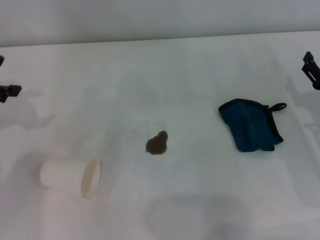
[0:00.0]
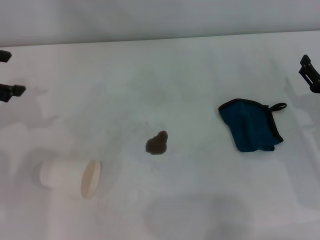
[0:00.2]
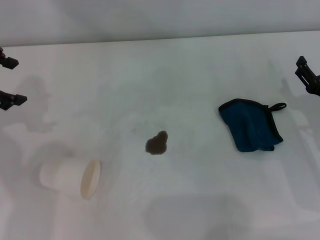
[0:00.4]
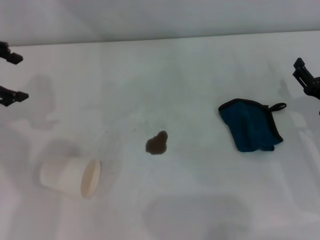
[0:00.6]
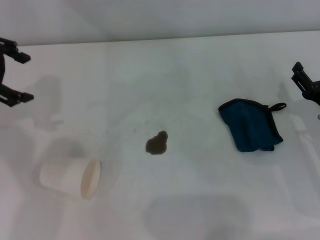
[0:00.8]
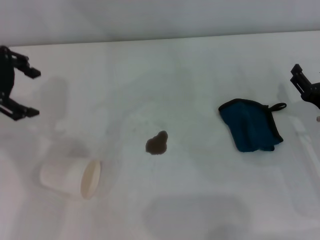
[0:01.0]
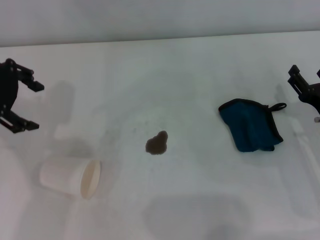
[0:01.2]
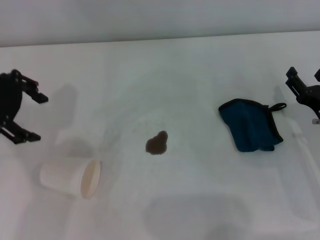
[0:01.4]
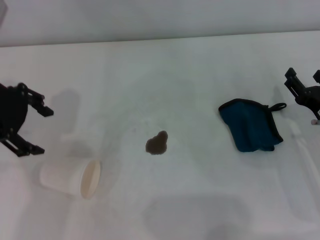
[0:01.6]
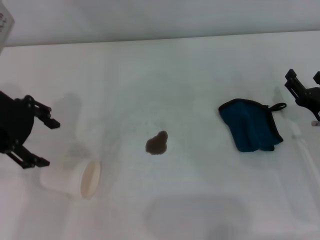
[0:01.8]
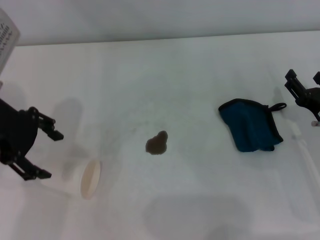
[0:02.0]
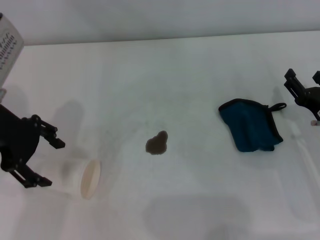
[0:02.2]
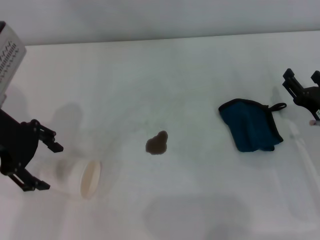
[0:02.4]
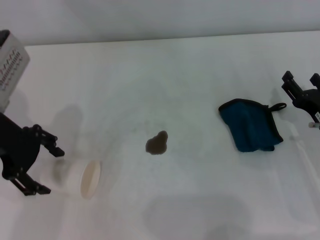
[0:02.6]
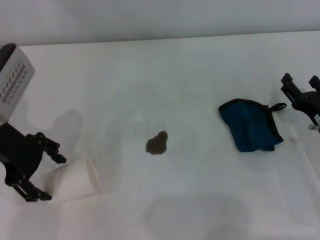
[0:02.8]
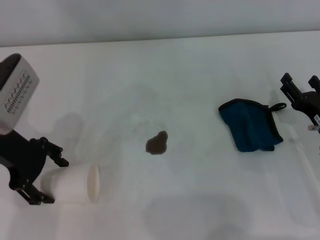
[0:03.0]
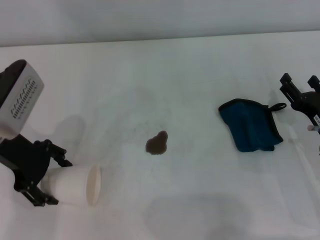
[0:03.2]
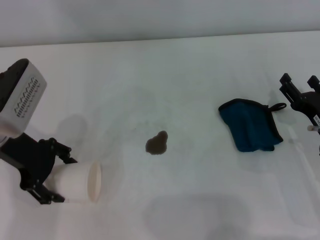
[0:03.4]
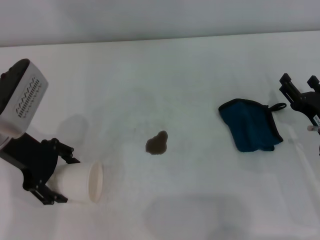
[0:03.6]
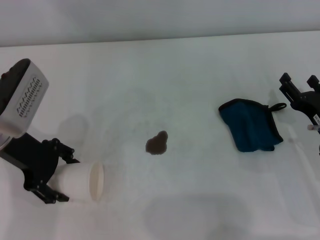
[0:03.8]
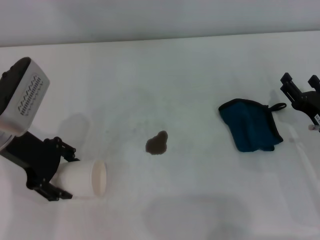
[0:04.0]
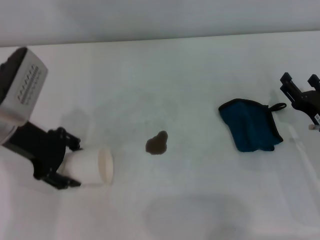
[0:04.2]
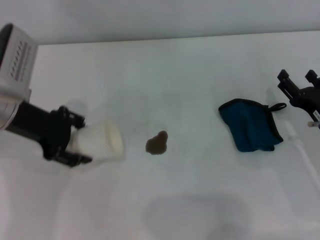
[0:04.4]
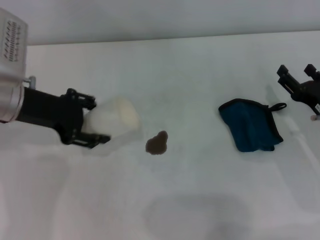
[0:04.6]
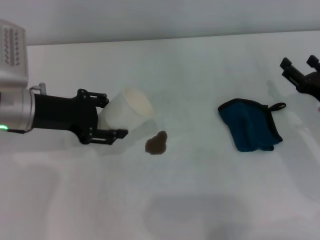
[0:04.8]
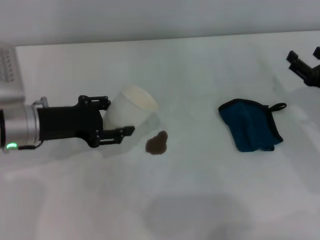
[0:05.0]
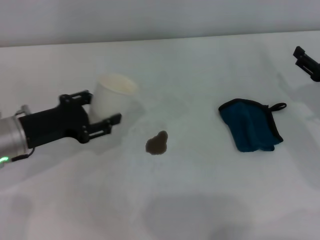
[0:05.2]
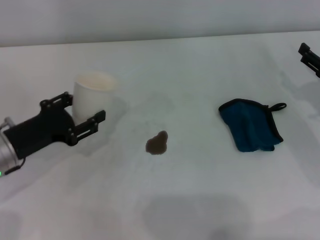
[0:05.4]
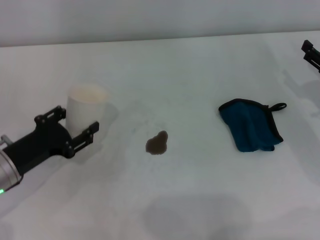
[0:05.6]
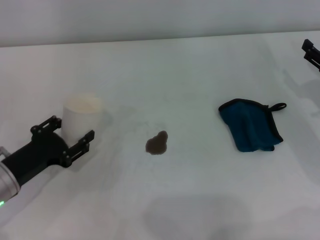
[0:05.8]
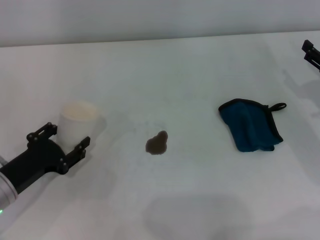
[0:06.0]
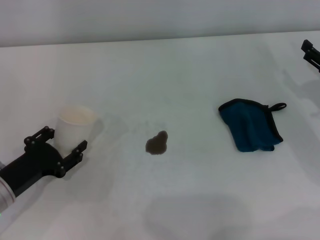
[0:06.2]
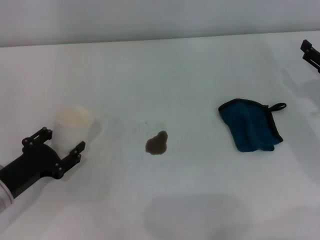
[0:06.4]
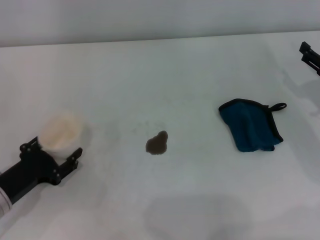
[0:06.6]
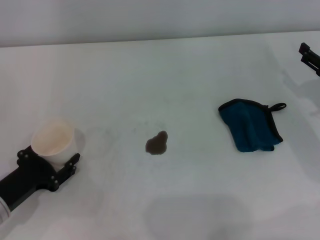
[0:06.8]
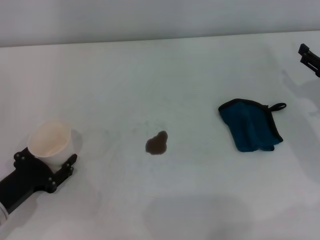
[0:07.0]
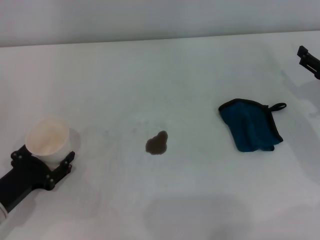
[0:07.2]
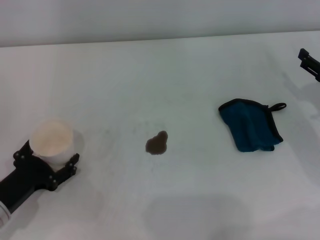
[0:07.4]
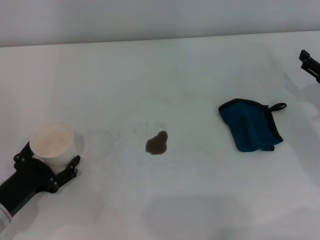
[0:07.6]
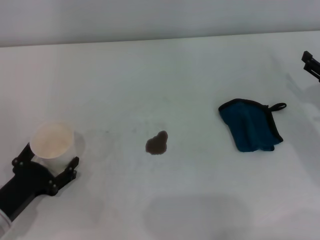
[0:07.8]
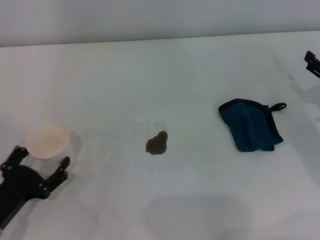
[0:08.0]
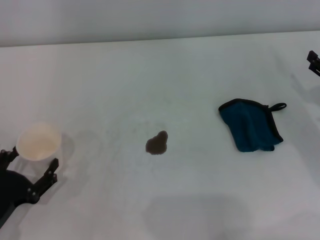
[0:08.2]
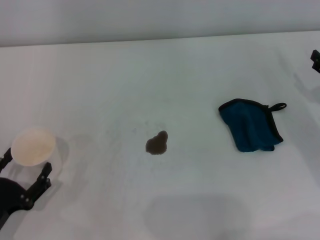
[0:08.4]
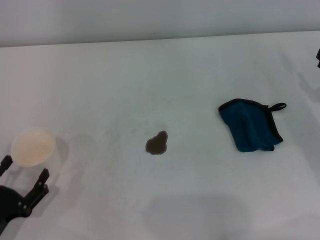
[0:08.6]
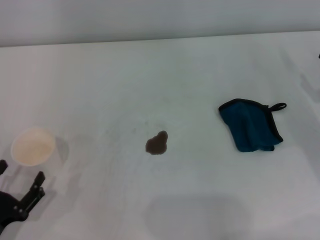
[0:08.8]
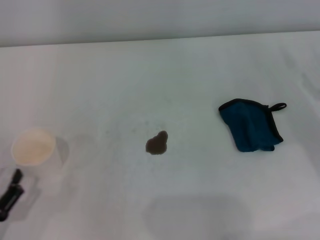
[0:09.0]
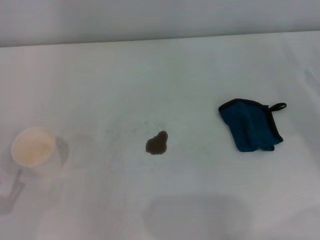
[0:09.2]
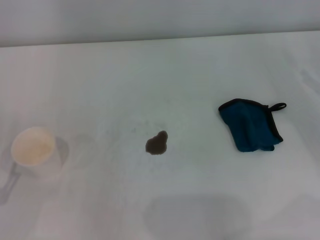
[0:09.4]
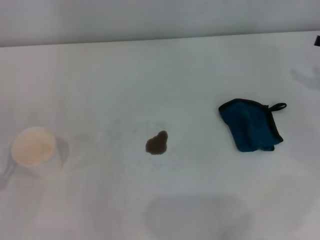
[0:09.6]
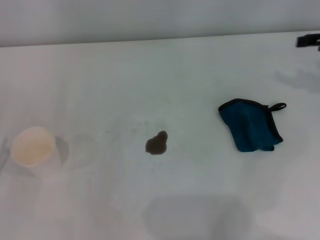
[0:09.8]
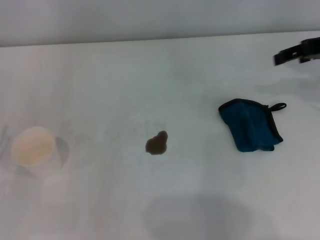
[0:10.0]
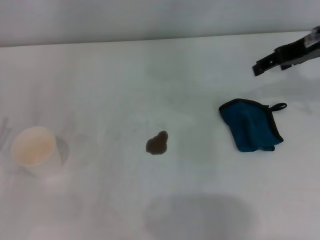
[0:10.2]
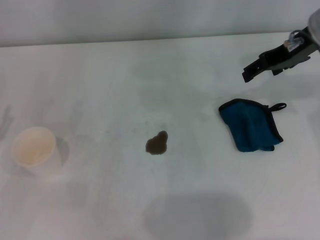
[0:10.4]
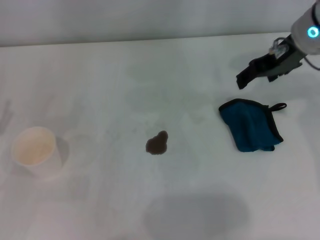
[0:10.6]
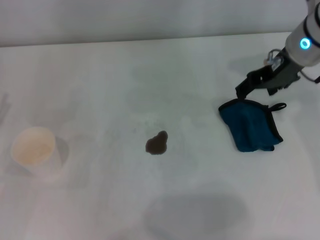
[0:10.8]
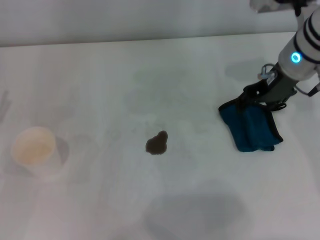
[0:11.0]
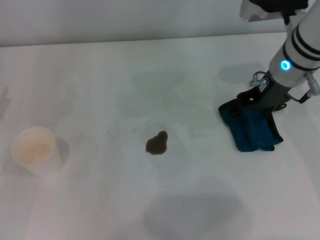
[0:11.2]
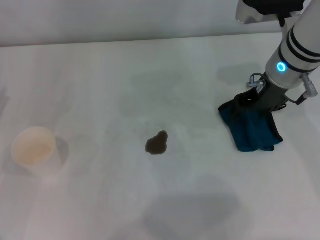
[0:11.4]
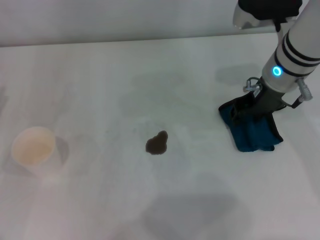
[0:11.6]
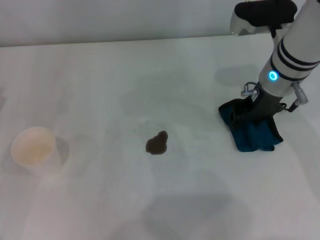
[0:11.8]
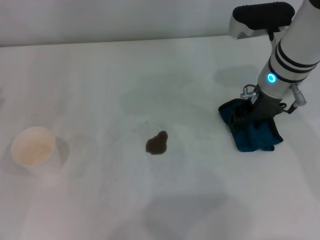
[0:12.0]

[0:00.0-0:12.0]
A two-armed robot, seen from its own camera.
Step, 0:00.0 to 0:03.8: Grasp the paper cup with the left gripper.
Step, 0:04.0 to 0:07.8: Stand the paper cup upright with the left gripper.
0:00.0 to 0:01.6: The left gripper travels to the right by roughly 10 cm.
0:01.6 to 0:03.0: The left gripper moves downward, roughly 10 cm.
0:03.0 to 0:04.4: The left gripper closes.
0:04.4 to 0:06.0: The right gripper heads to the right, covering about 5 cm. Meanwhile the left gripper is displaced downward and backward by some 20 cm.
0:06.0 to 0:07.6: The left gripper opens.
0:07.6 to 0:09.0: The left gripper shifts roughly 10 cm backward, and opens its fingers.
0:09.0 to 0:10.4: The right gripper moves upward, to the left and forward, approximately 25 cm, while the left gripper heads forward and upward, covering approximately 10 cm.
0:10.4 to 0:12.0: The right gripper shifts roughly 10 cm downward and to the left, and closes its fingers.

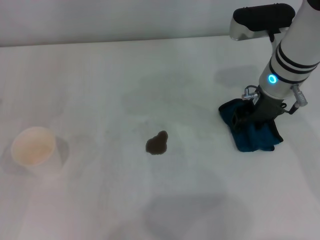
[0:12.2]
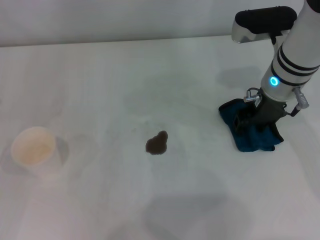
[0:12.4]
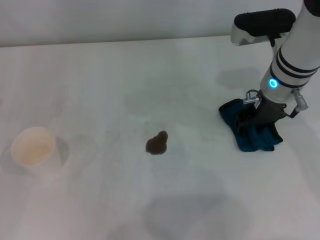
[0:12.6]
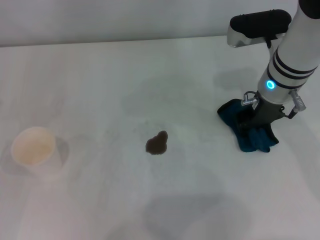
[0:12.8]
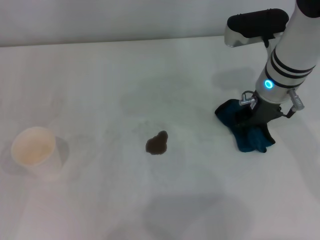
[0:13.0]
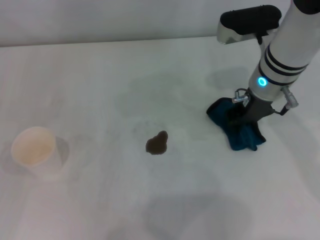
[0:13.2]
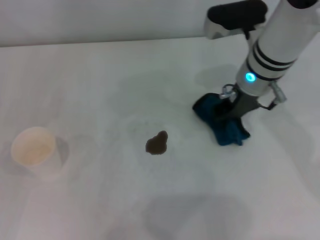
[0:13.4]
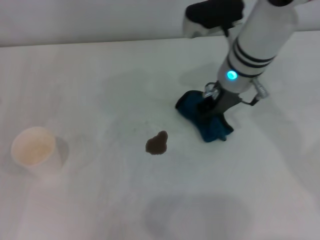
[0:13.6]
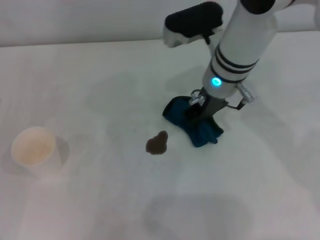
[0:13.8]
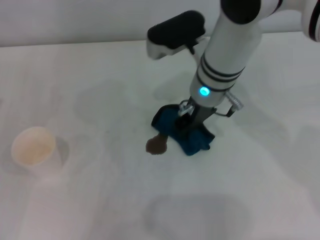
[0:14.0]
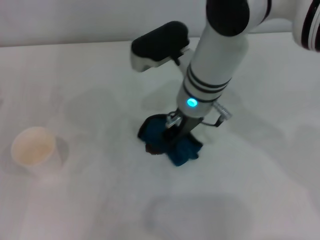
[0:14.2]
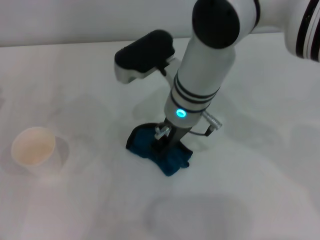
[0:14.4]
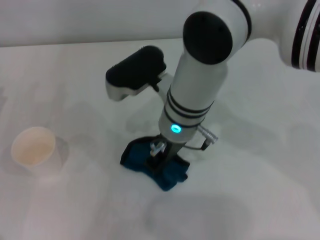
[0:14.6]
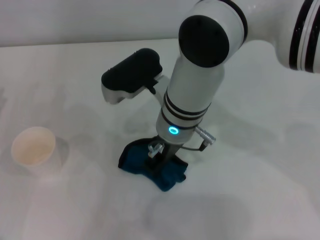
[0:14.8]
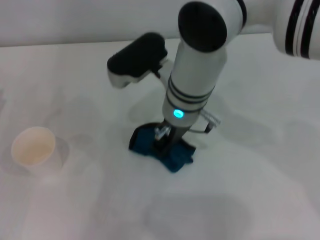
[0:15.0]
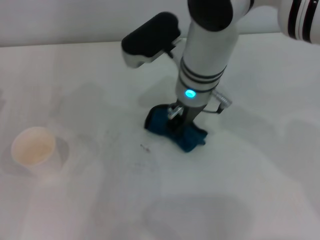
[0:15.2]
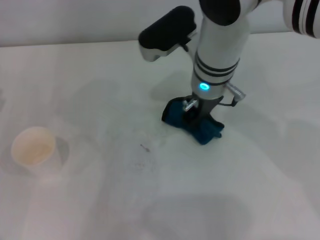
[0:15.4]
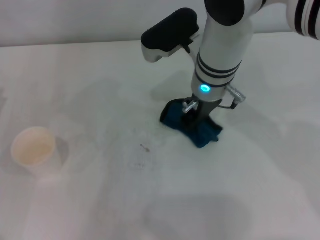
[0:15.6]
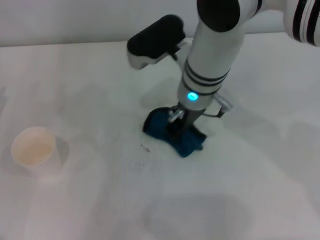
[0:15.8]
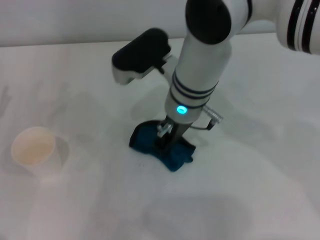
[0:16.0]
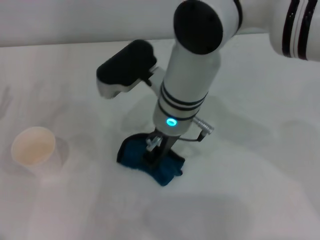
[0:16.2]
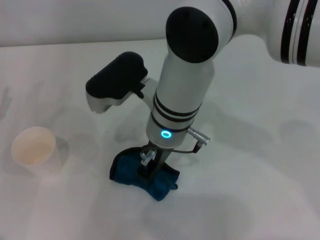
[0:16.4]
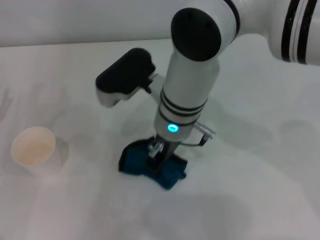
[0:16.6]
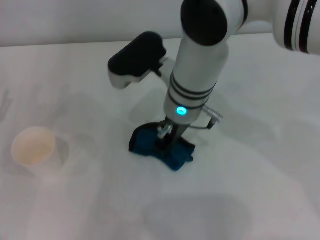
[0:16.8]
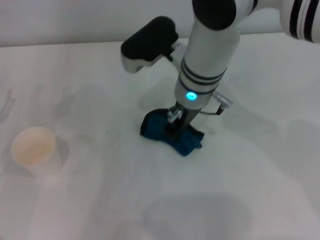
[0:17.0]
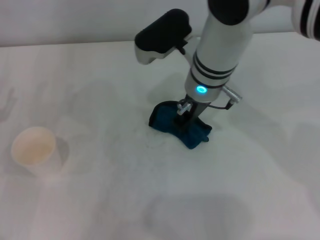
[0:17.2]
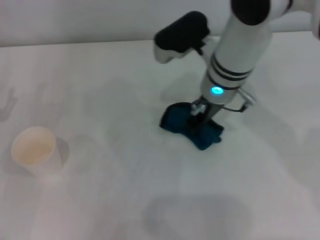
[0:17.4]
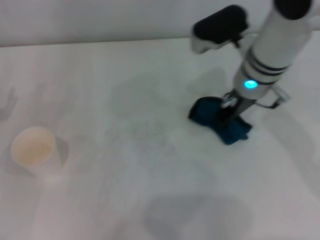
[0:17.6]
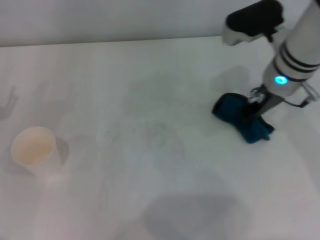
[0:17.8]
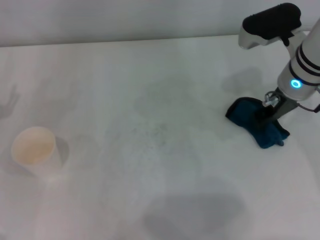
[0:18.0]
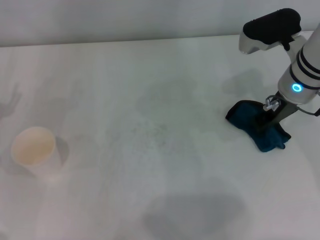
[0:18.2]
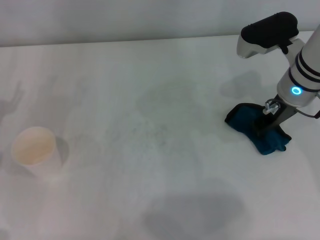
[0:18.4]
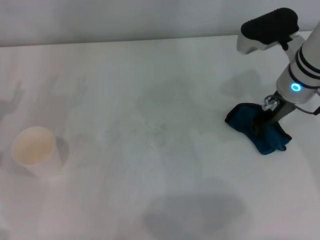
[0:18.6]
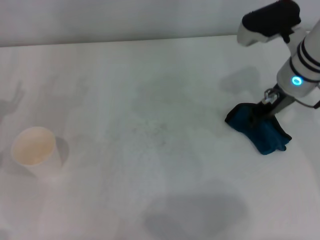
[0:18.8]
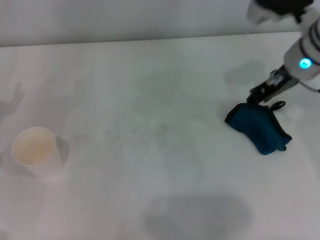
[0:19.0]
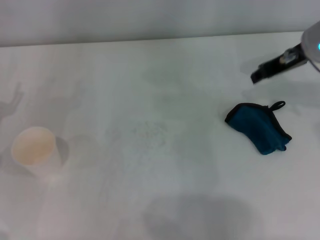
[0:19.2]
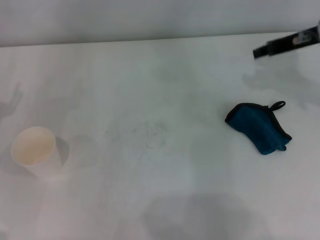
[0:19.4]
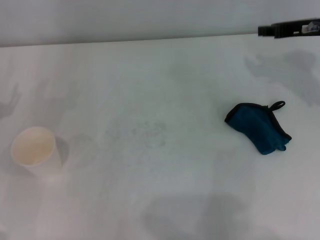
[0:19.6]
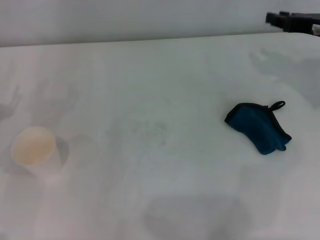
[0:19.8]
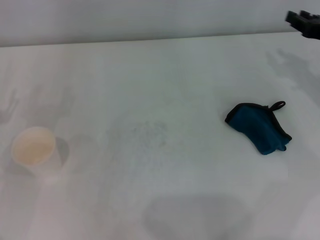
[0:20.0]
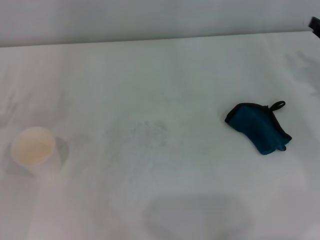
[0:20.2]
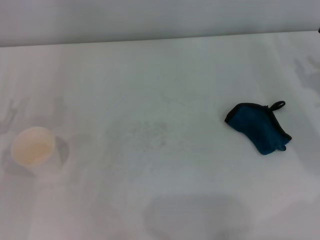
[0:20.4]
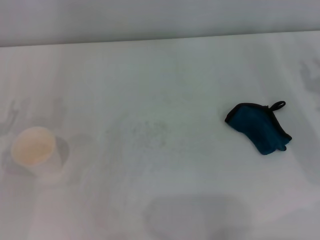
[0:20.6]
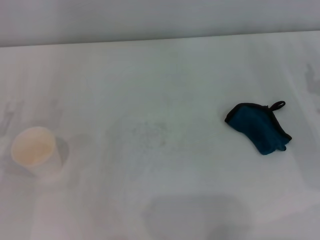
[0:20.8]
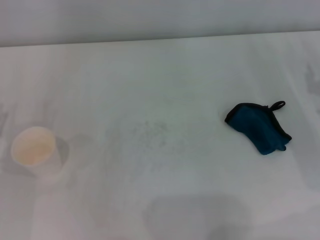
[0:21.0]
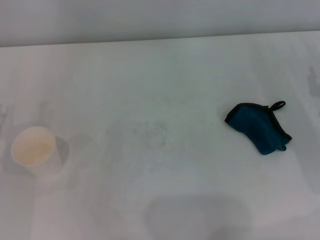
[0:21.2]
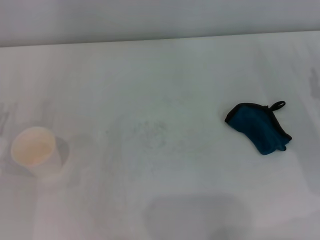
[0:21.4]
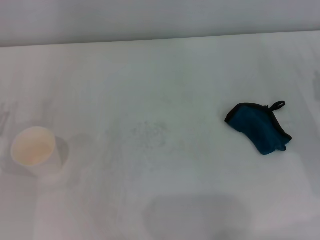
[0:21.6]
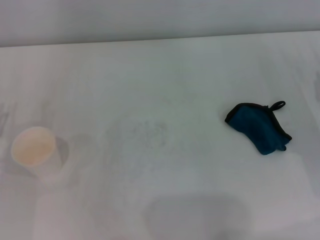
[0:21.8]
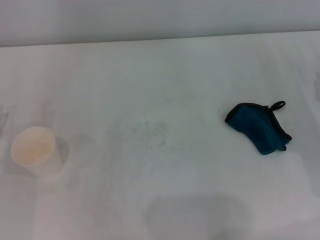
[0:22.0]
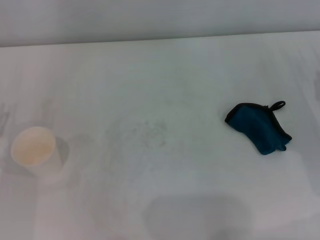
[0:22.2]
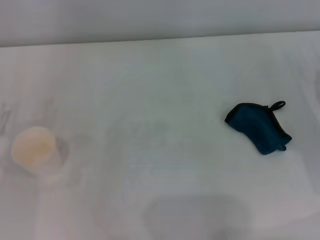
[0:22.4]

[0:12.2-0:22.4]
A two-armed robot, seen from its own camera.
Step, 0:13.0 to 0:17.6: Wipe the stains off the table with the right gripper.
Step, 0:17.8 to 0:18.4: Place the rag on the table with the right gripper.
0:12.2 to 0:13.6: The right gripper moves to the left, about 5 cm, and closes.
0:13.6 to 0:15.2: The right gripper goes approximately 5 cm to the left.
0:15.2 to 0:16.6: The right gripper ends up some 5 cm from where it was.
0:16.6 to 0:18.0: The right gripper travels to the right by some 20 cm.
0:18.0 to 0:19.4: The right gripper shifts approximately 5 cm to the right.
0:19.4 to 0:21.0: The right gripper is displaced downward, backward and to the right by approximately 20 cm.
